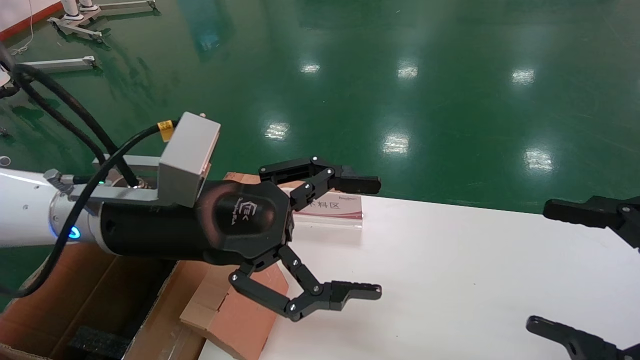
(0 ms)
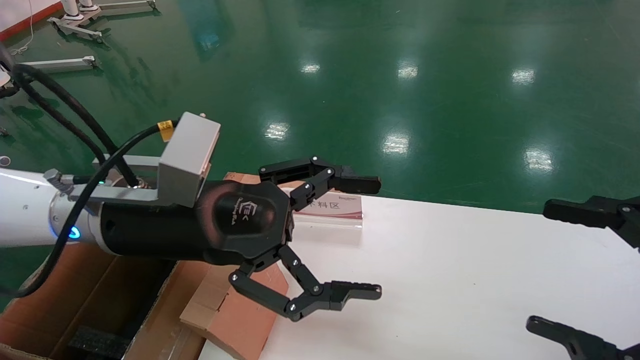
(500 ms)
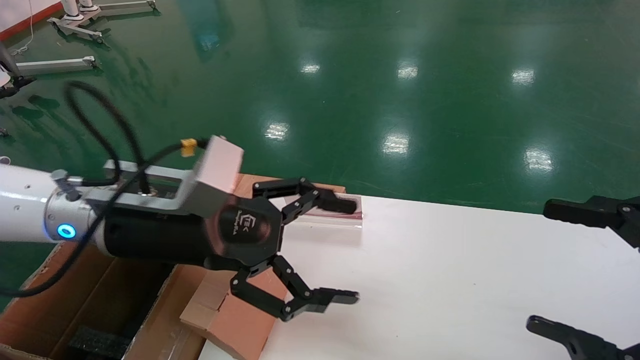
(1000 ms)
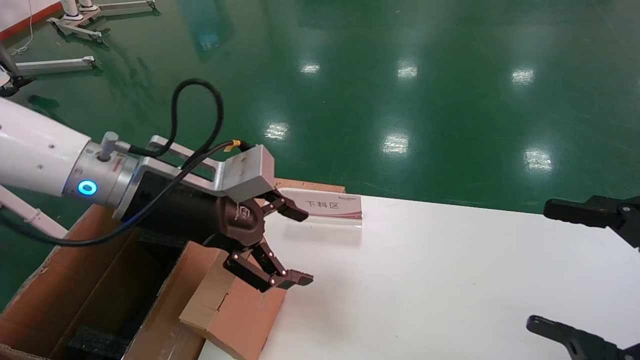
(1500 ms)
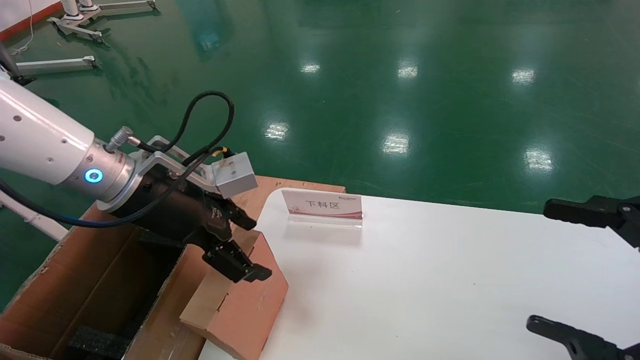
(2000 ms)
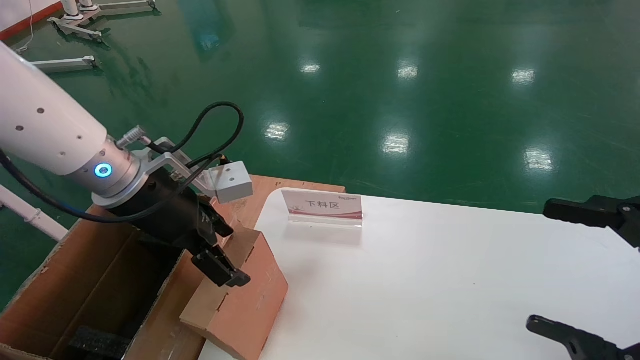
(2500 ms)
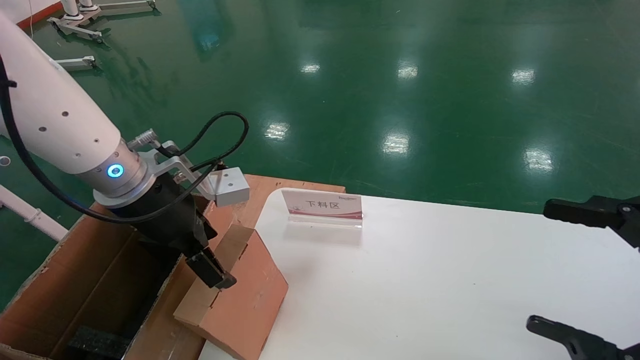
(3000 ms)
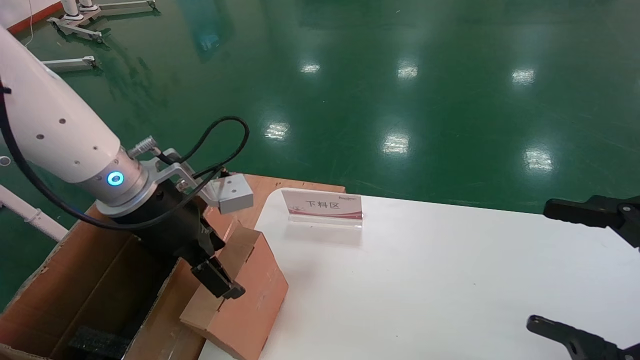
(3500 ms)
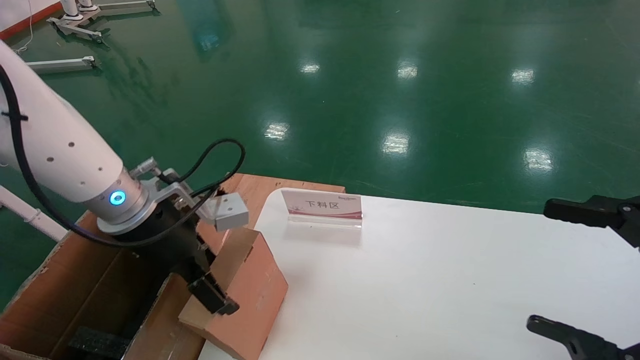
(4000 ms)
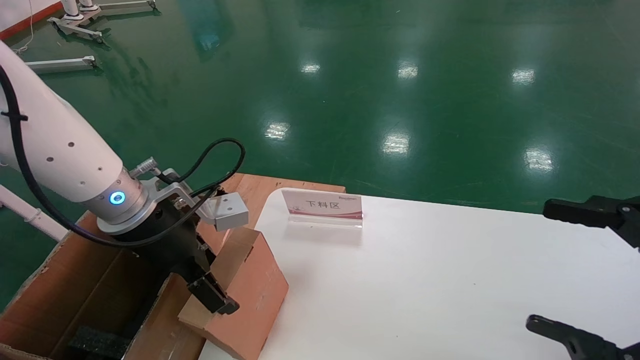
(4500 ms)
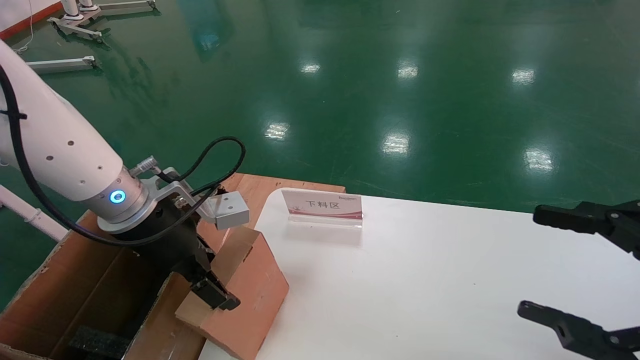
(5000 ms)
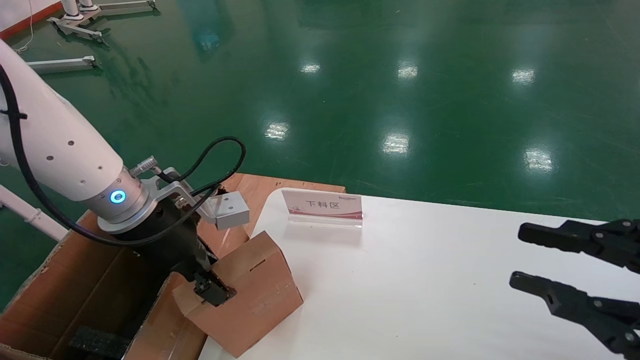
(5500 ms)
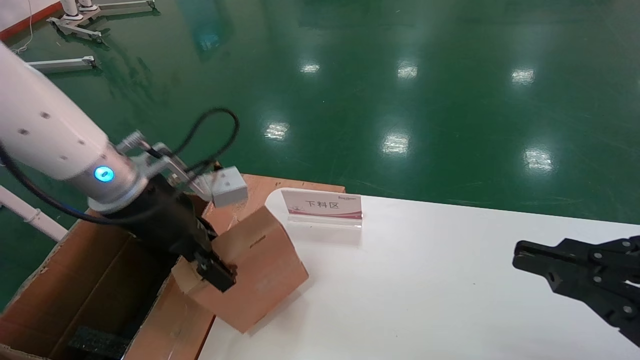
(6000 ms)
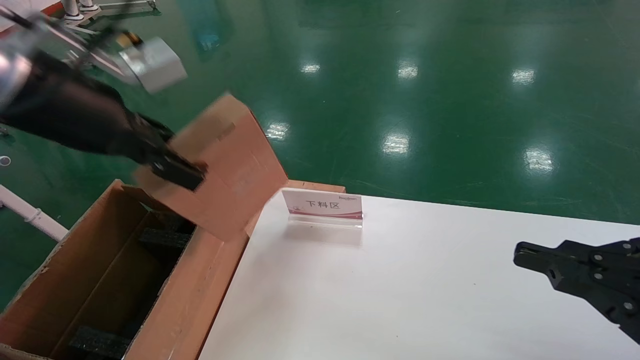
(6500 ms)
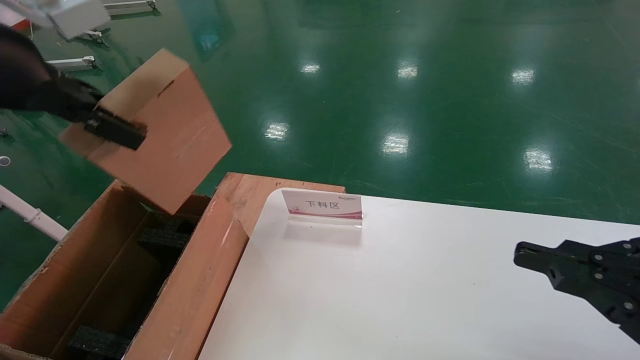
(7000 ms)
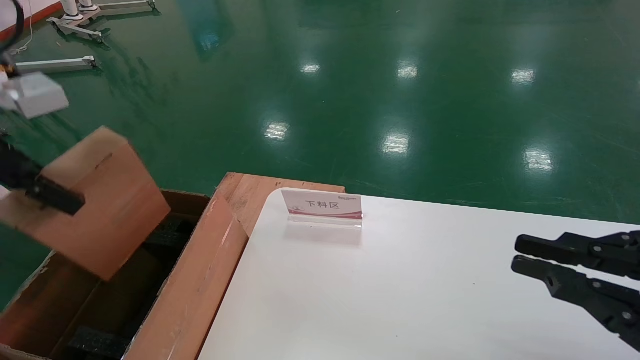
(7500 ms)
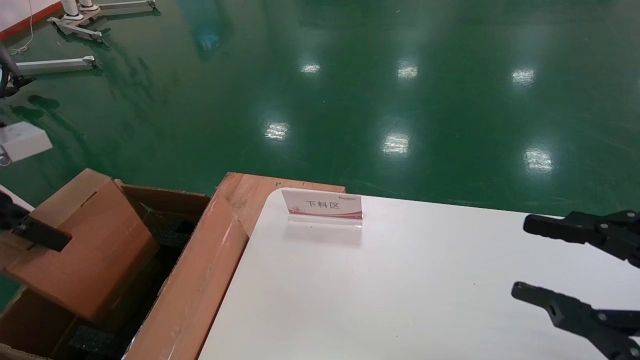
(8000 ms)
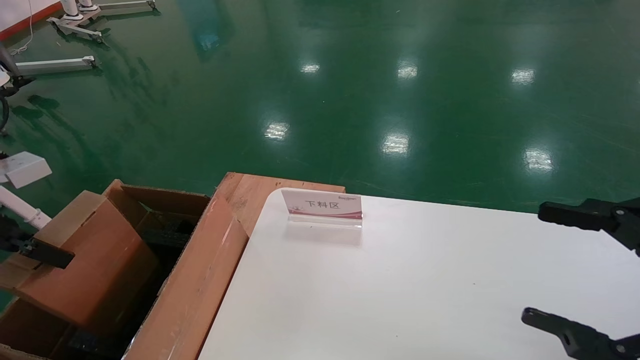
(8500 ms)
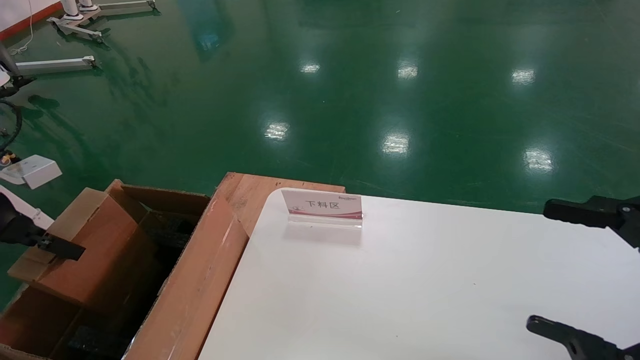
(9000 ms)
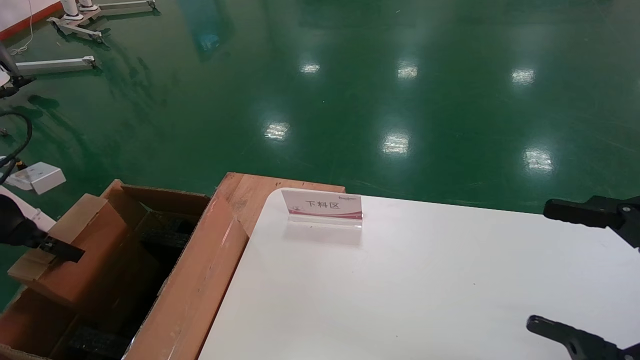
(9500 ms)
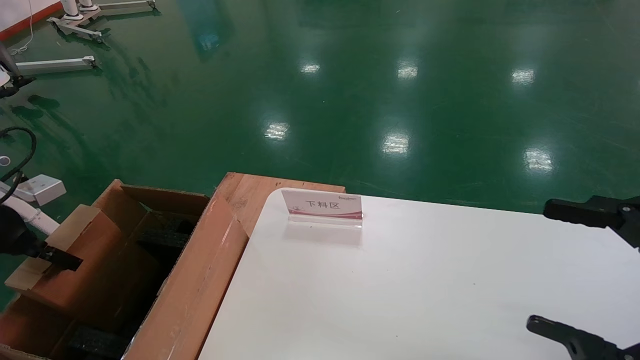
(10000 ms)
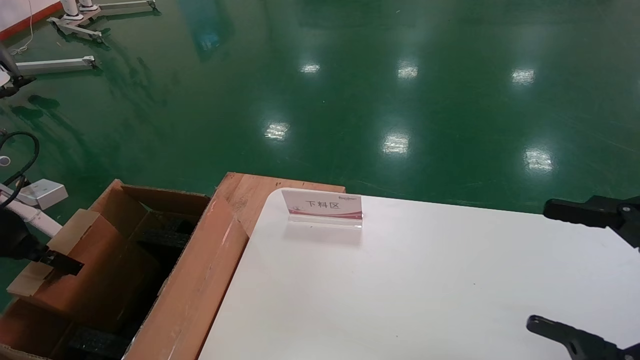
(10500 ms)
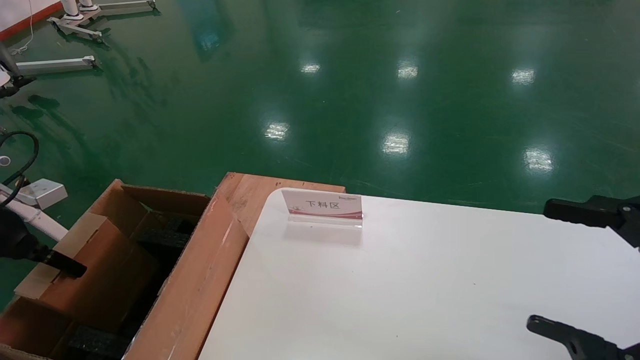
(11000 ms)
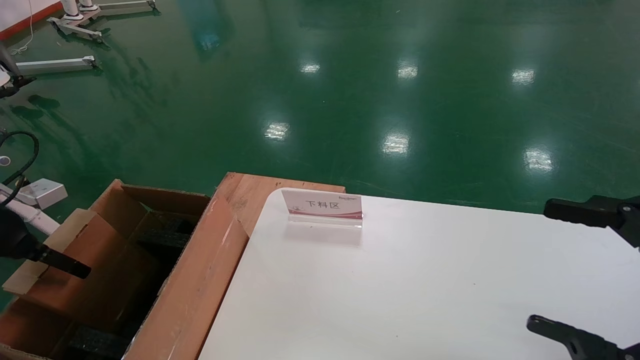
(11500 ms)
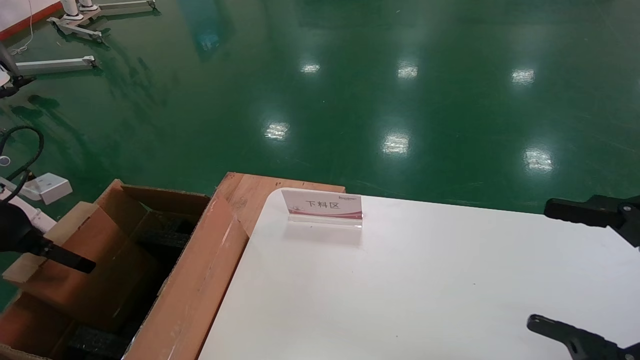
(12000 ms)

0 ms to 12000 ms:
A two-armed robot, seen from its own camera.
Task of the whole recording: pick up the small cardboard box and load it into the large cardboard box.
Step, 1500 ms to 5000 ms: Pick up the mouse and power cord box.
Step, 5500 ms to 11000 ms: Place the mouse and power cord box into the case.
0 ms to 2000 ms: The left gripper changes place by some 5 cm.
4000 ms to 6000 ms: The right gripper closes, while the left gripper closes up.
6000 ms to 8000 ms: The left gripper heads to the left and backward, covering about 20 cm.
8000 ms to 10000 ms: The right gripper opens up. Meanwhile the left gripper travels downward, to the left and forward by approximately 15 cm.
10000 ms to 12000 ms: The left gripper opens its fingers.

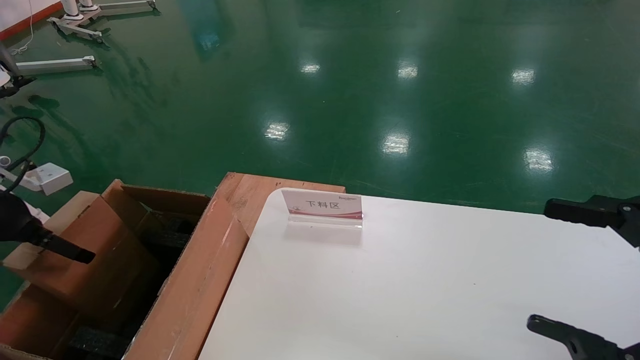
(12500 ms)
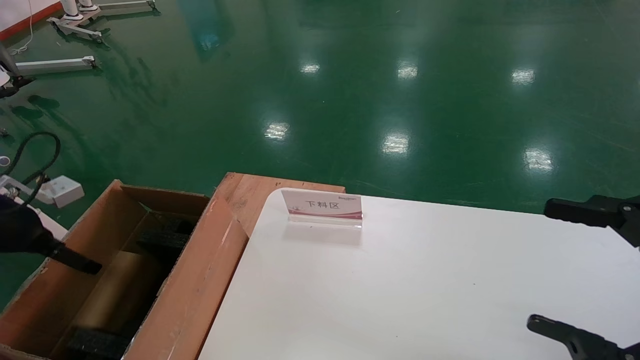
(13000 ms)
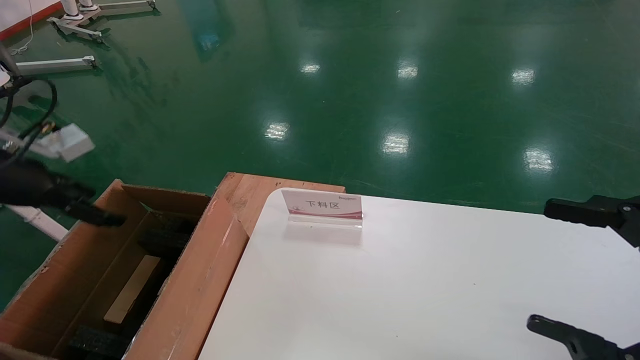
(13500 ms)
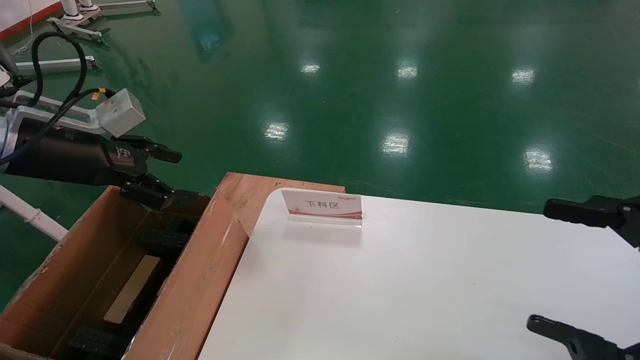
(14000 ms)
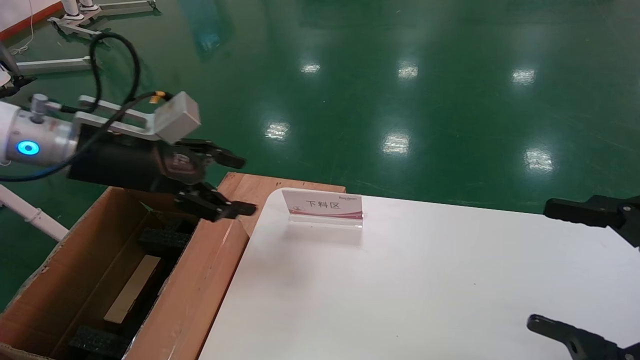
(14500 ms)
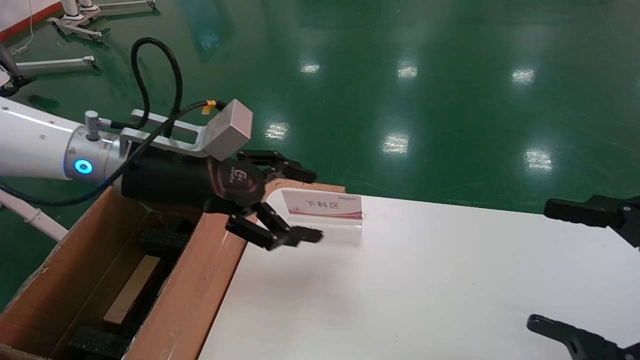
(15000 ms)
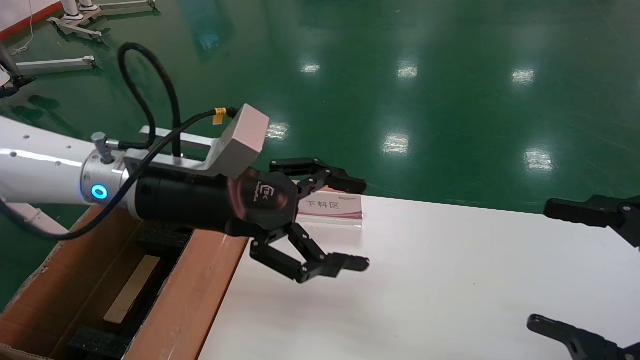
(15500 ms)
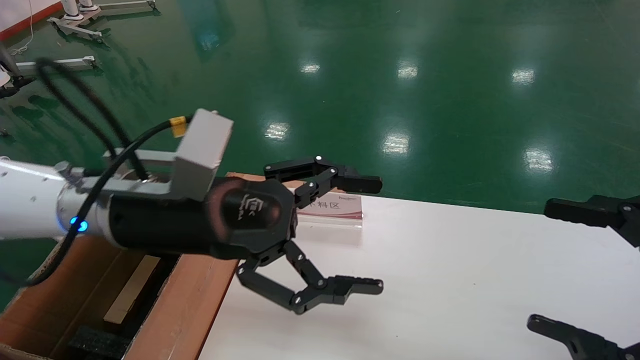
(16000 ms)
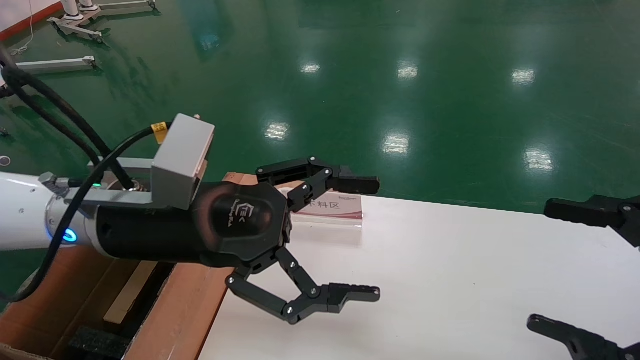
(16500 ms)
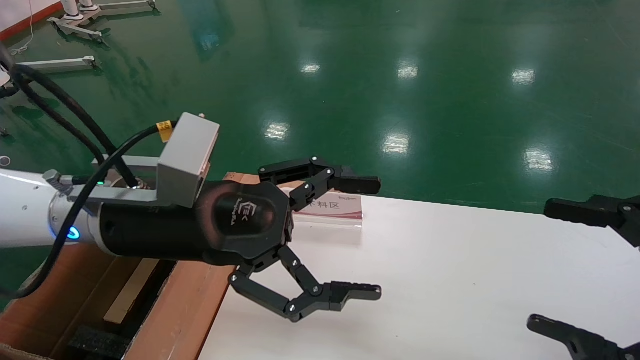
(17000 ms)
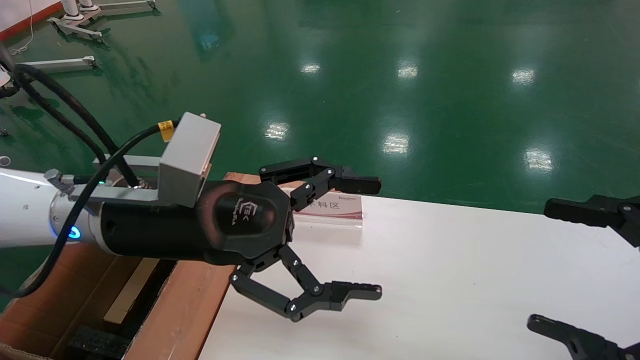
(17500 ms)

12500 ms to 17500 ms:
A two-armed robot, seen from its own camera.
Task of the whole recording: pick up the small cardboard box and load it into the large cardboard box.
12500 ms to 15000 ms: The left gripper travels to the right by roughly 30 cm.
15000 ms to 17500 ms: The left gripper moves backward and to the right, roughly 10 cm.
